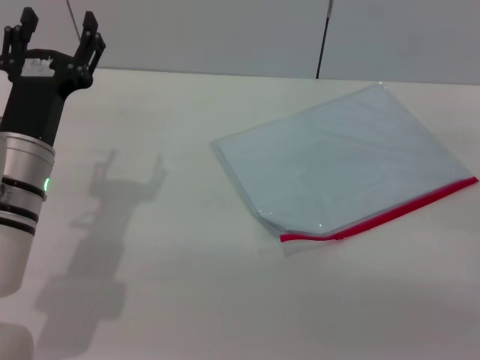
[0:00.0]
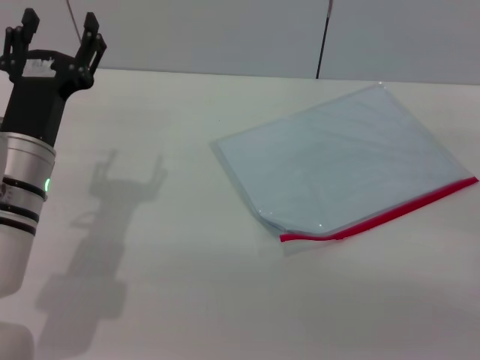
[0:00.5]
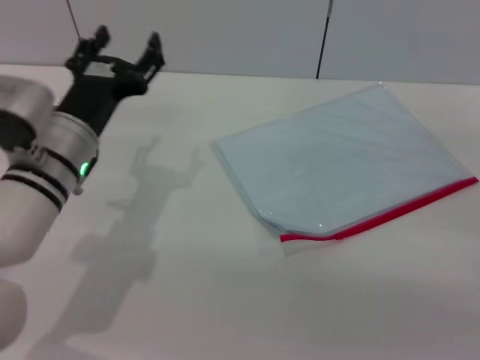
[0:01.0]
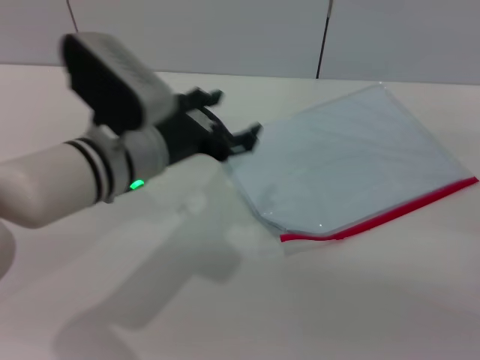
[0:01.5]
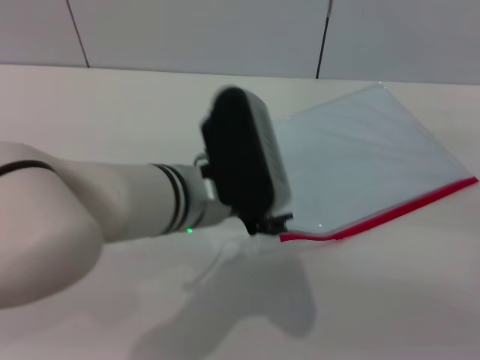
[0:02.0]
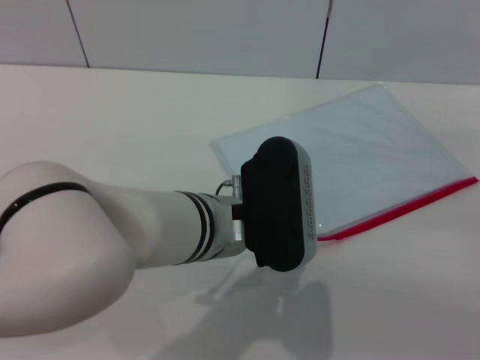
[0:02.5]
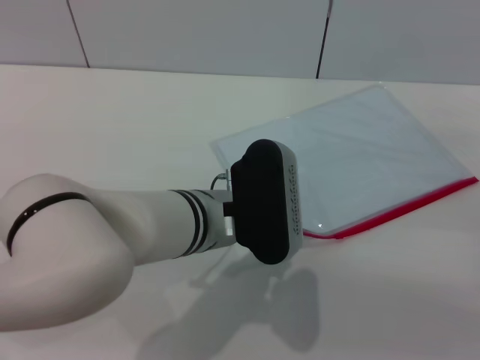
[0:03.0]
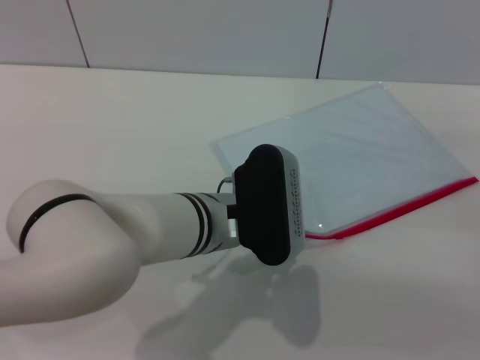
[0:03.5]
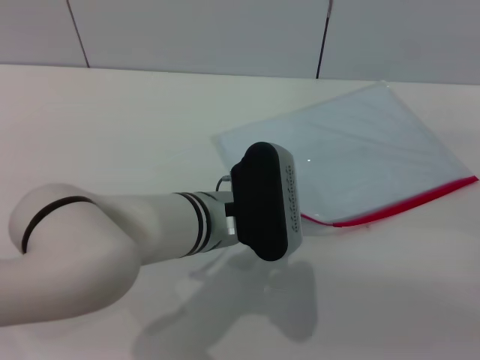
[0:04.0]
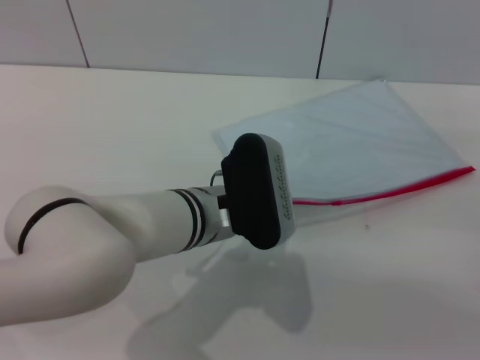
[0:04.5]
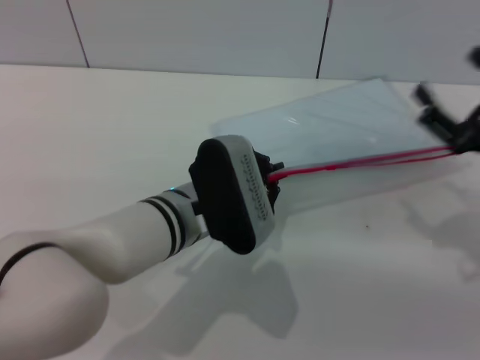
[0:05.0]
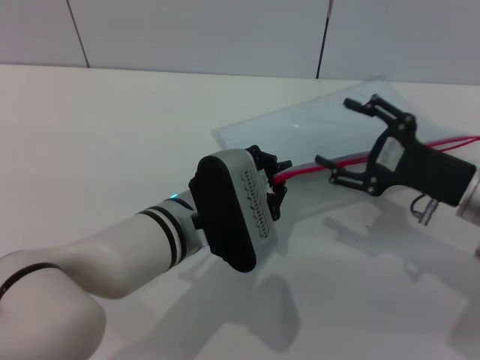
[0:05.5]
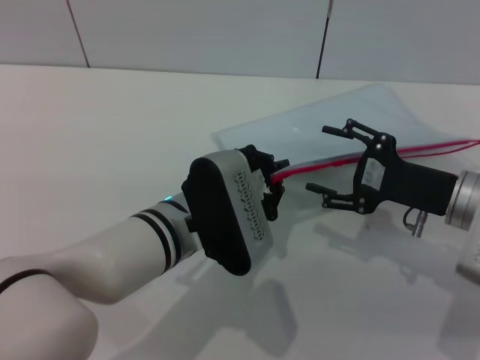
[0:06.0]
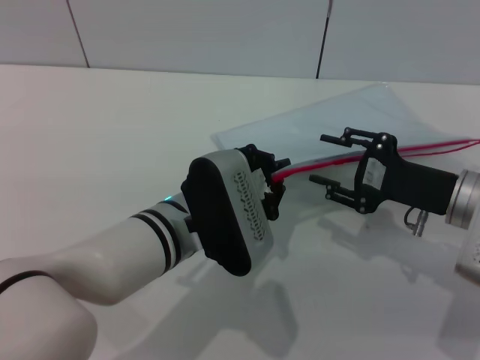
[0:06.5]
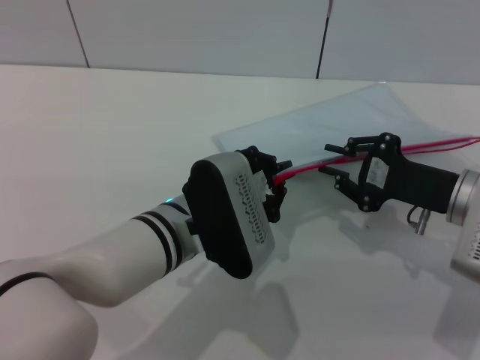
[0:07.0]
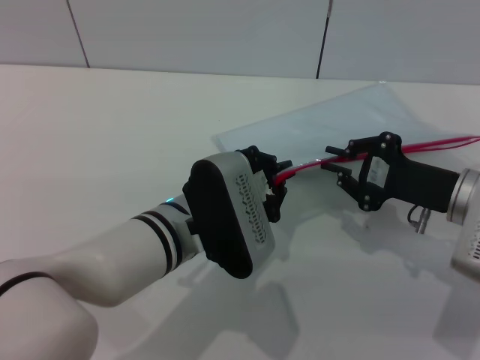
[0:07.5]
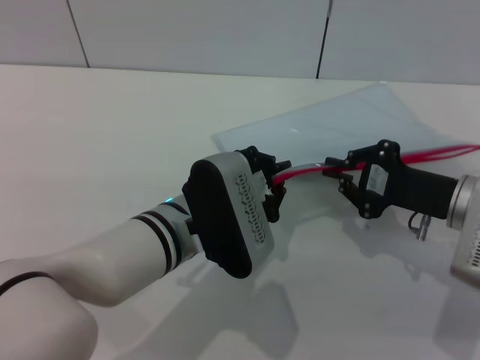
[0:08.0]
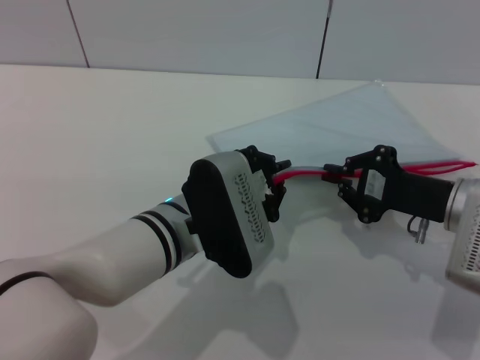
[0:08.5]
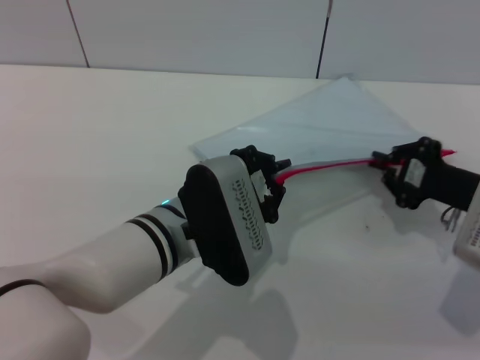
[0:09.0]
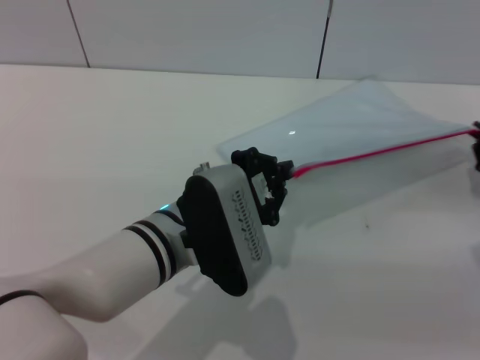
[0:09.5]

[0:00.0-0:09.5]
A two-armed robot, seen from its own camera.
Step, 0:00.0 to 0:05.0: Pick up the transparent plastic bag with the left gripper.
0:00.0 to 0:02.0: The left gripper goes some 15 cm to the right.
0:02.0 to 0:04.0: The left gripper moves about 5 cm, and closes its fingers.
0:04.0 to 0:05.5: The right gripper shifts approximately 10 cm to the left. The left gripper closes.
0:05.5 to 0:07.5: The right gripper closes.
0:07.5 to 0:09.5: The right gripper shifts some 10 cm to the right.

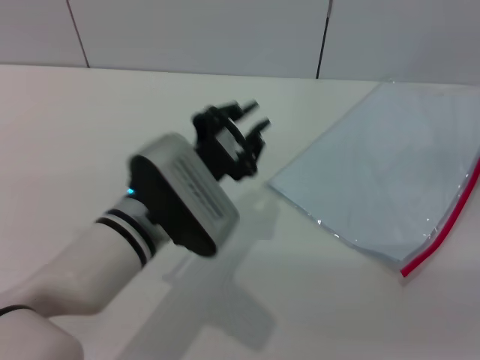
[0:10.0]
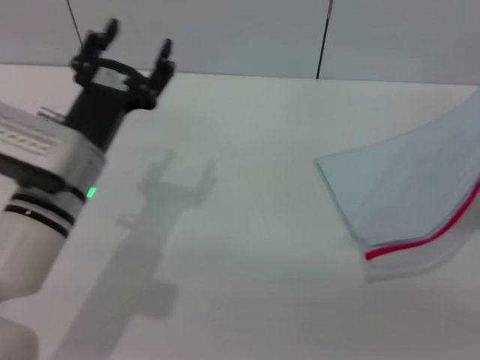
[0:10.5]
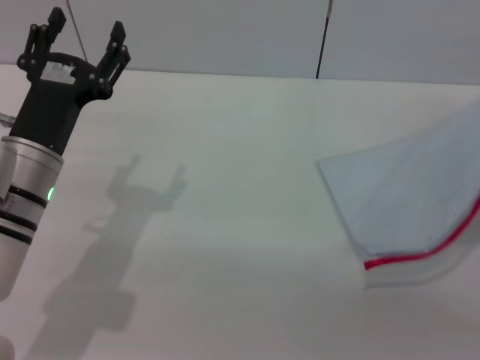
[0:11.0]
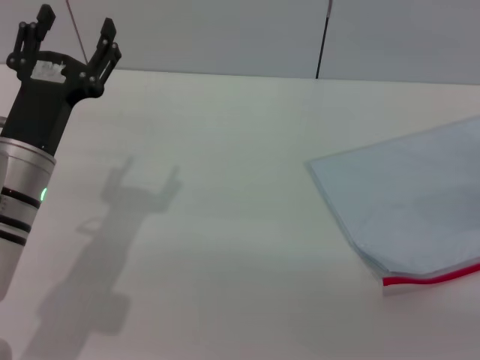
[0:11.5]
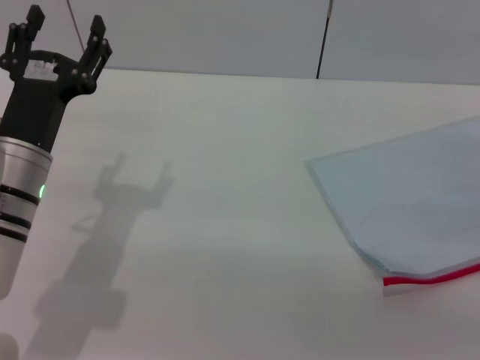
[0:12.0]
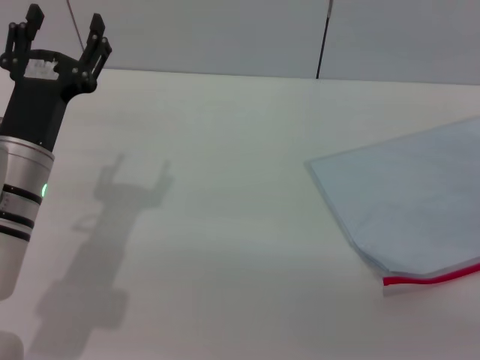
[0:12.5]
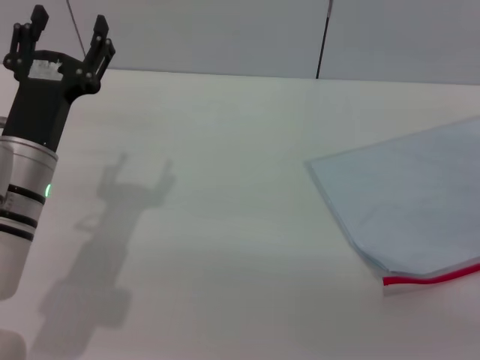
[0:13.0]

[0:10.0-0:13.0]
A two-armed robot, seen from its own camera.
0:10.0 to 0:11.5: The right gripper heads backward, covering roughly 5 cm, and opens. The left gripper goes about 10 cm to the left, and opens up.
